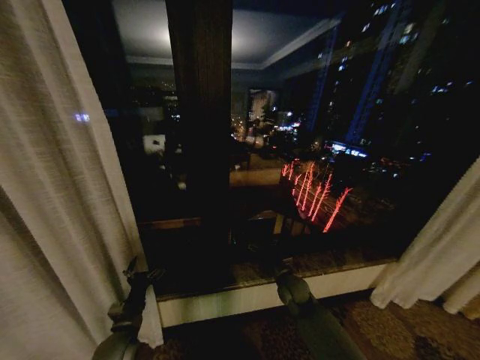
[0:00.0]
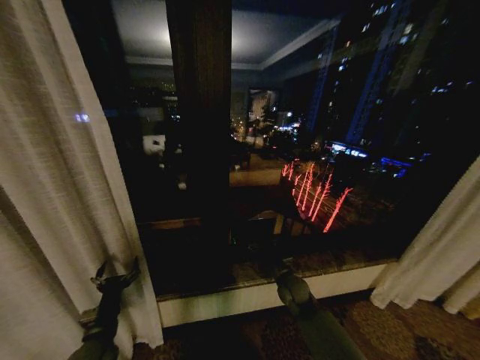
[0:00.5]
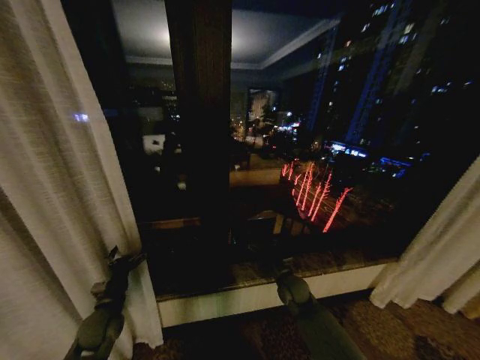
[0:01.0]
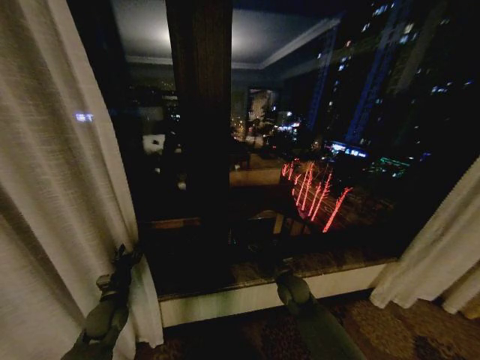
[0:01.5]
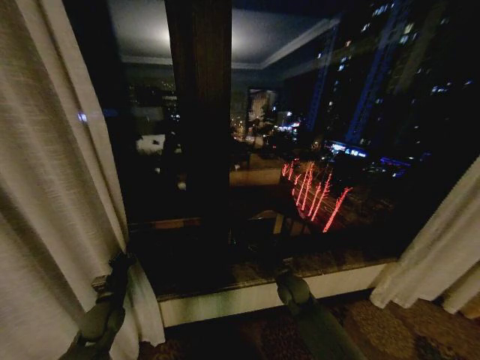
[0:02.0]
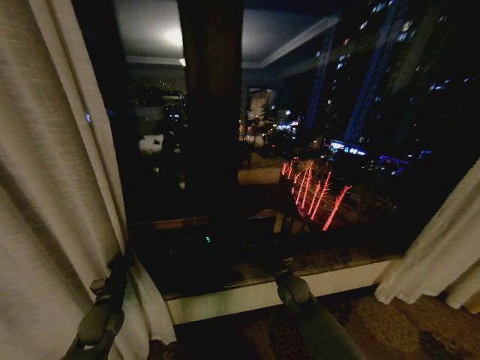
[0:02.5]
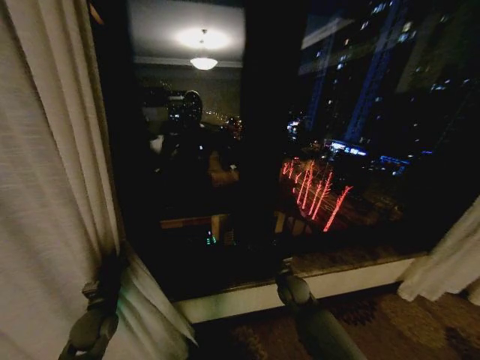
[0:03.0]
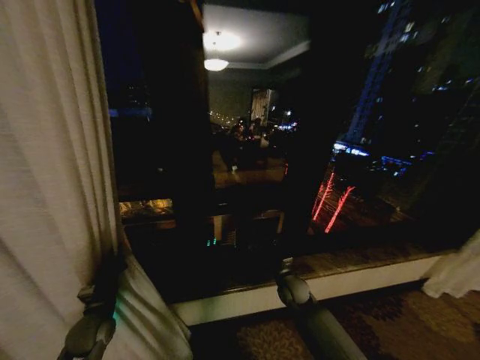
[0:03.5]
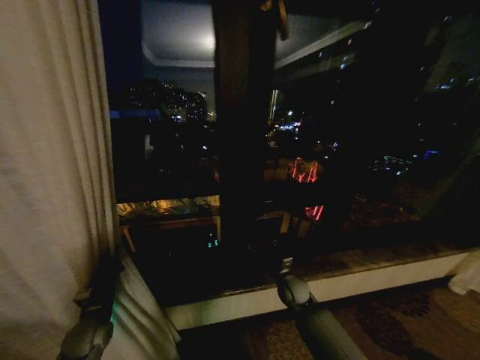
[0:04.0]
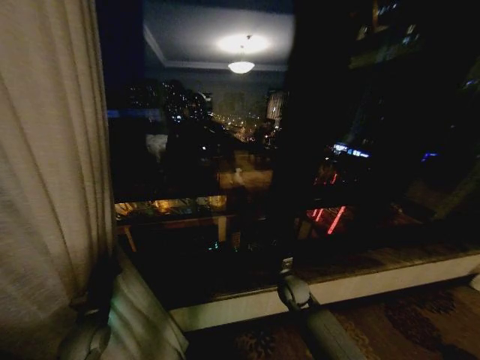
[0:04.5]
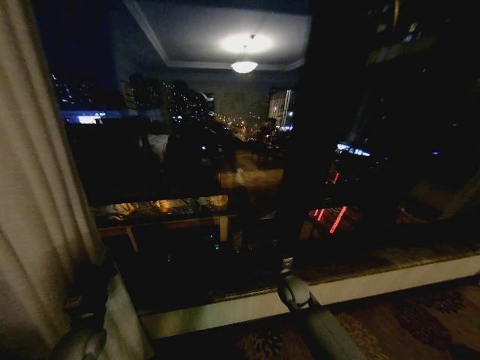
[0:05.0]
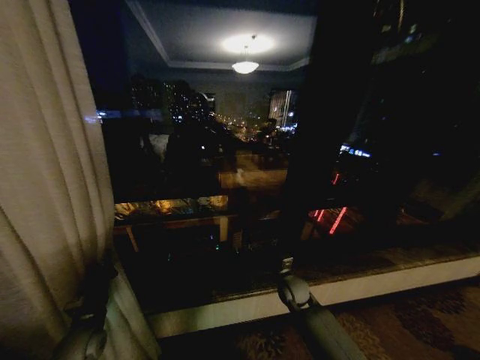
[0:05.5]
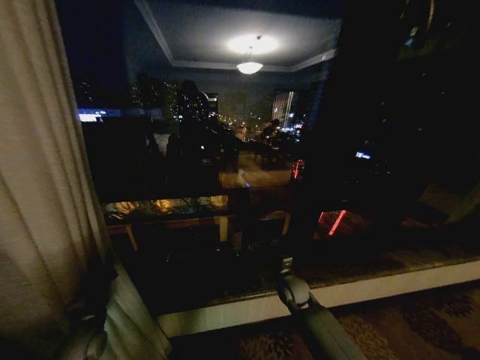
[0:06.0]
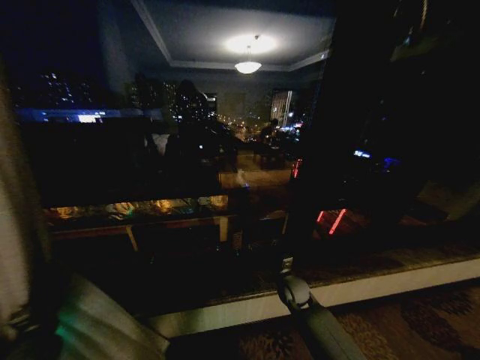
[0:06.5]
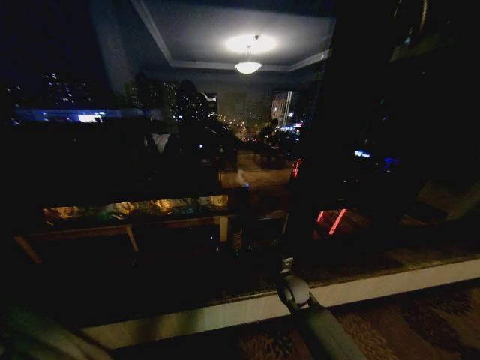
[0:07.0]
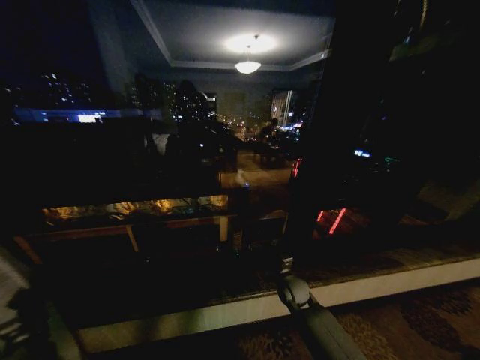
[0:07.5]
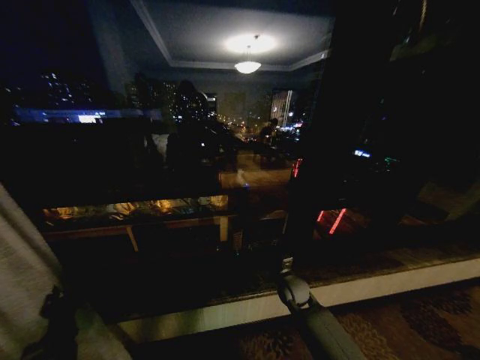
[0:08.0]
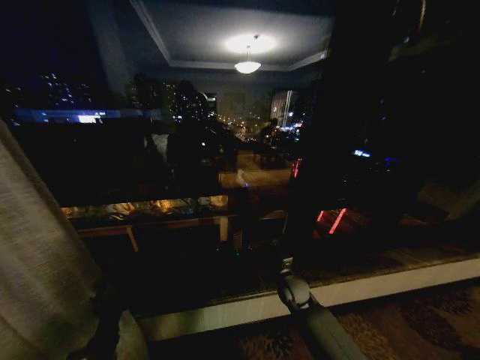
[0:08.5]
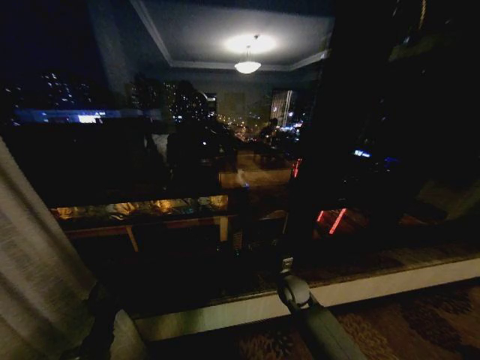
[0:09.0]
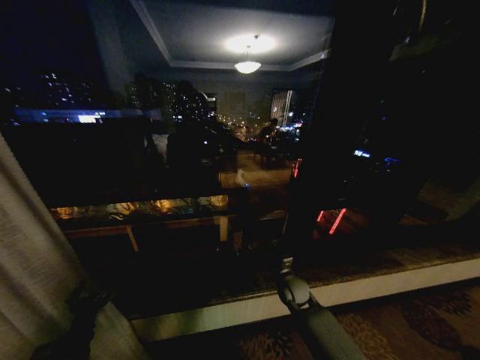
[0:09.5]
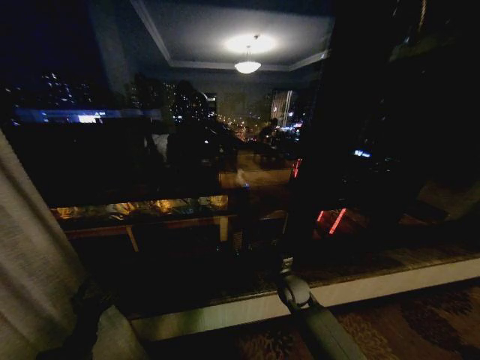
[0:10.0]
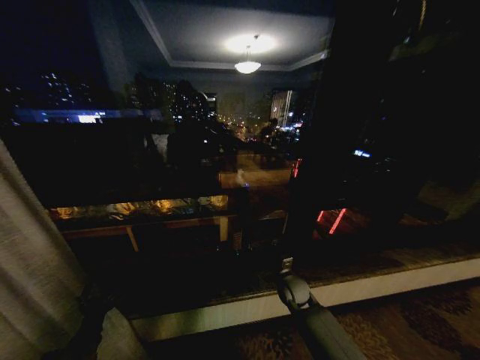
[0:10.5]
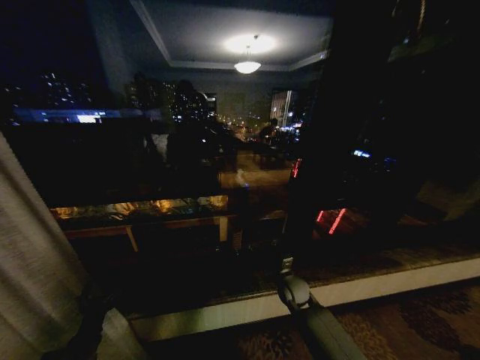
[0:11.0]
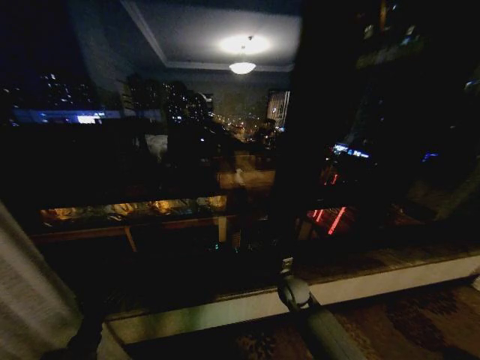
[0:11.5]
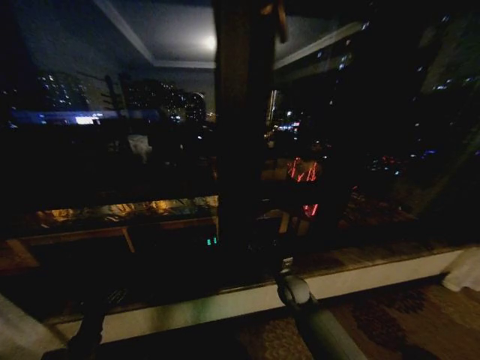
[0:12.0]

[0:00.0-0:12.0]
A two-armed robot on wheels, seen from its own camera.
Task of the whole recording: Open the curtains by pulling them apart, changing their state from closed to fully open.
0:00.0 to 0:02.0: The left gripper goes approximately 10 cm to the left and forward, and closes.
0:06.0 to 0:08.0: The left gripper shifts approximately 10 cm backward, and goes to the left and returns, approximately 25 cm each way.
0:08.0 to 0:10.0: The left gripper reaches approximately 10 cm to the right, then returns, and opens its fingers.
